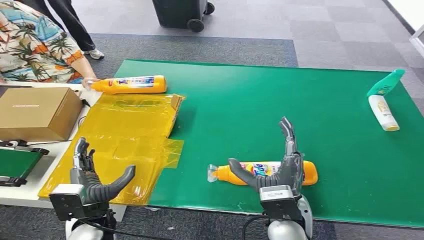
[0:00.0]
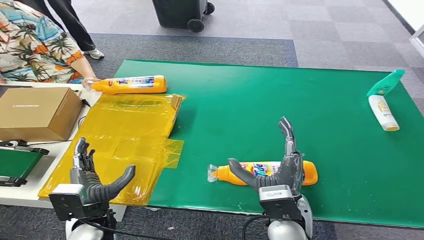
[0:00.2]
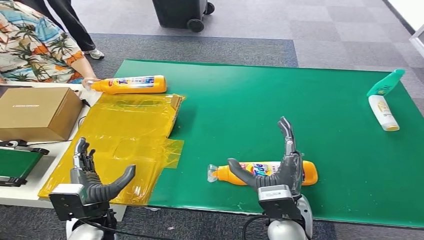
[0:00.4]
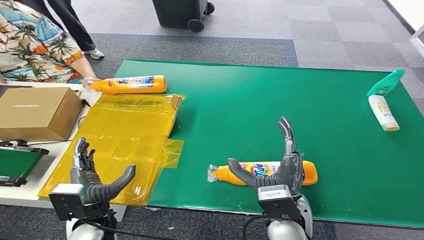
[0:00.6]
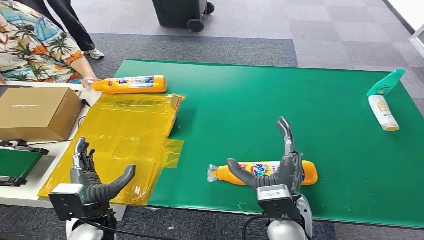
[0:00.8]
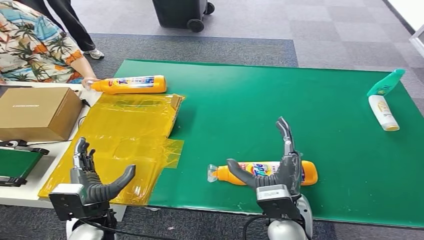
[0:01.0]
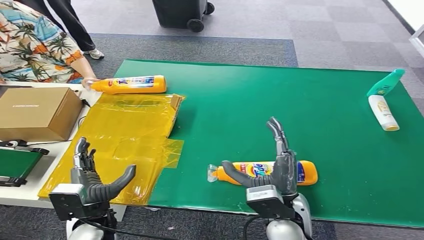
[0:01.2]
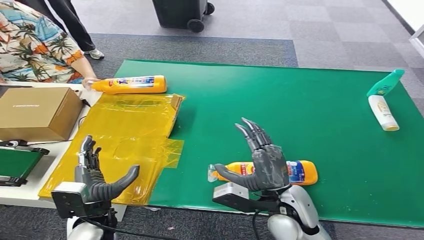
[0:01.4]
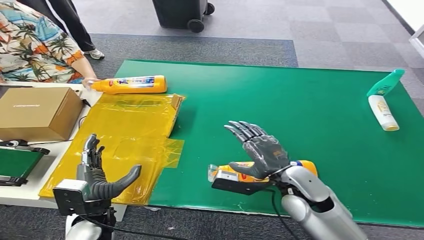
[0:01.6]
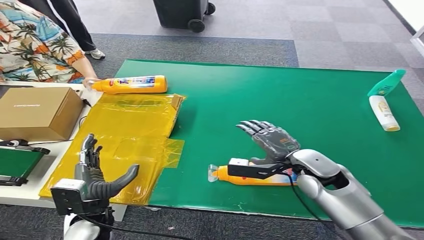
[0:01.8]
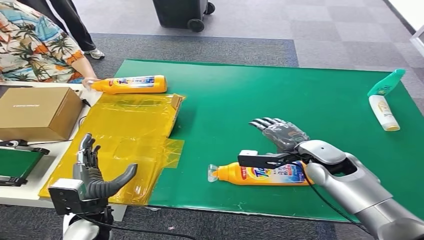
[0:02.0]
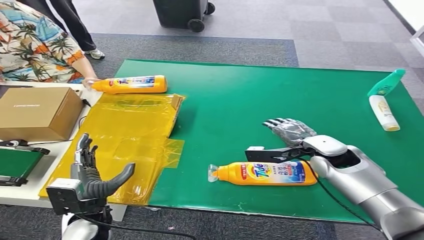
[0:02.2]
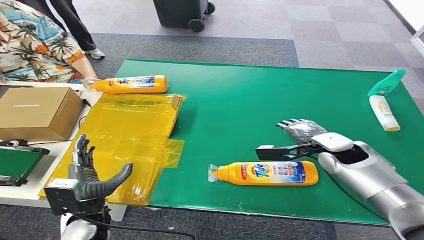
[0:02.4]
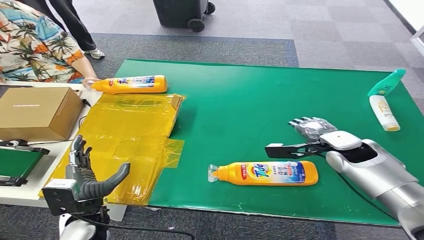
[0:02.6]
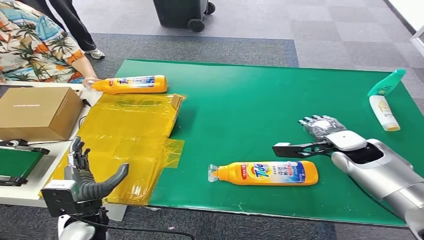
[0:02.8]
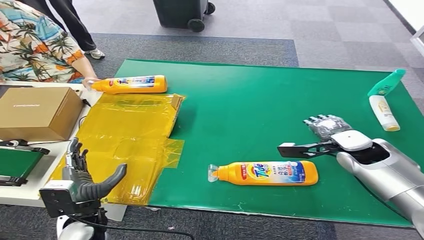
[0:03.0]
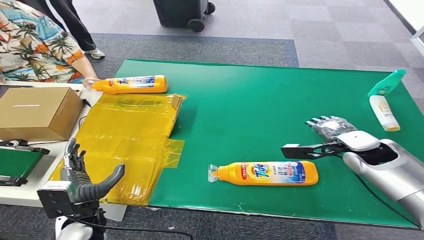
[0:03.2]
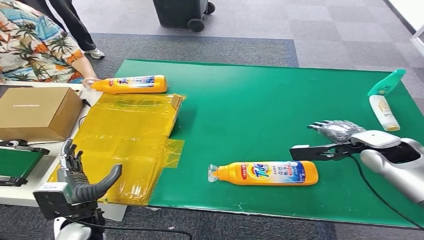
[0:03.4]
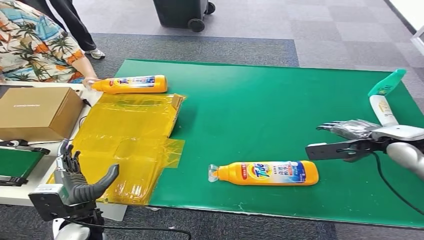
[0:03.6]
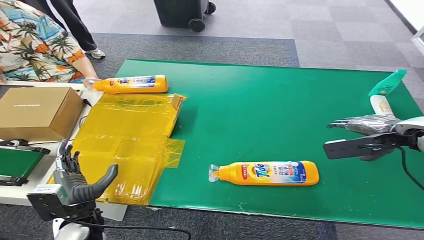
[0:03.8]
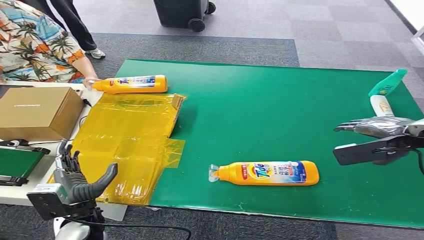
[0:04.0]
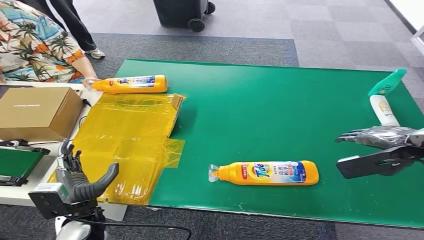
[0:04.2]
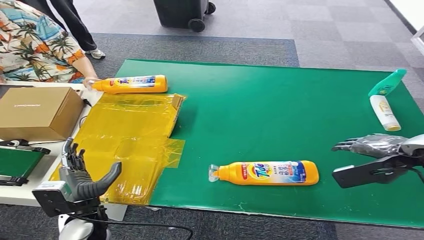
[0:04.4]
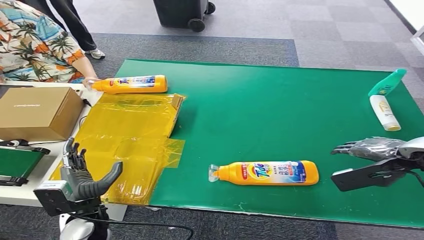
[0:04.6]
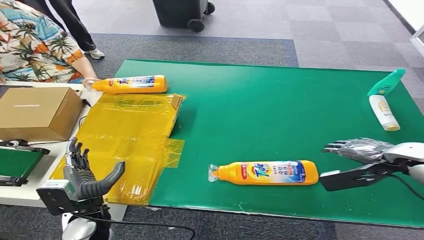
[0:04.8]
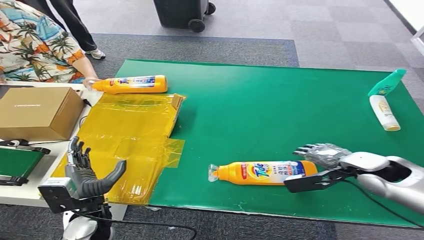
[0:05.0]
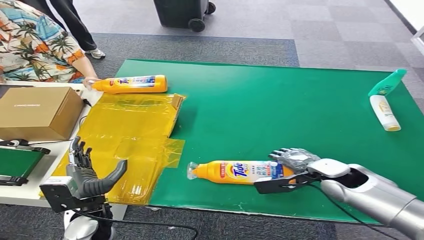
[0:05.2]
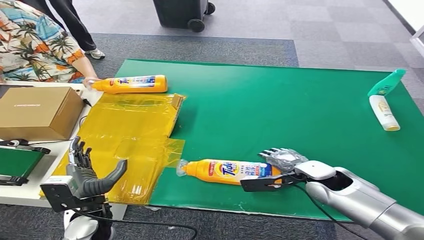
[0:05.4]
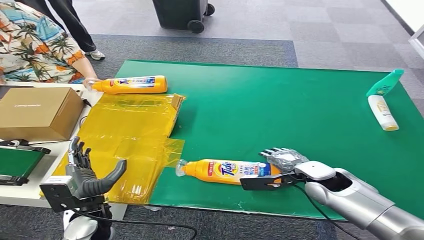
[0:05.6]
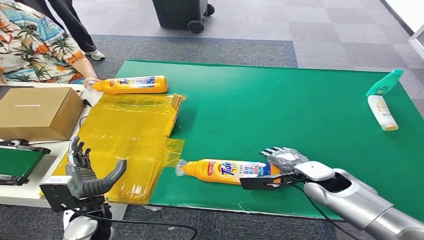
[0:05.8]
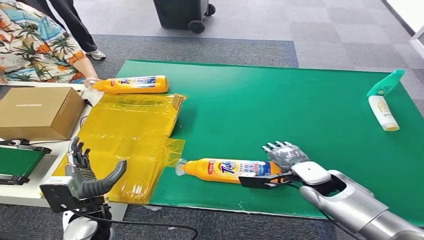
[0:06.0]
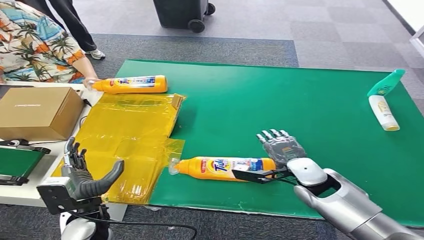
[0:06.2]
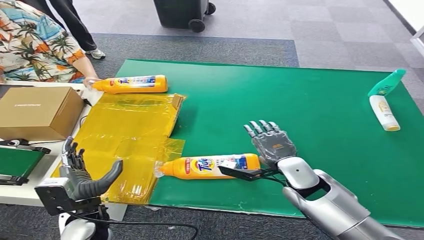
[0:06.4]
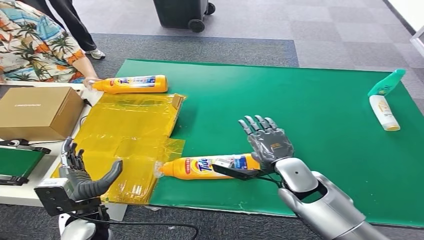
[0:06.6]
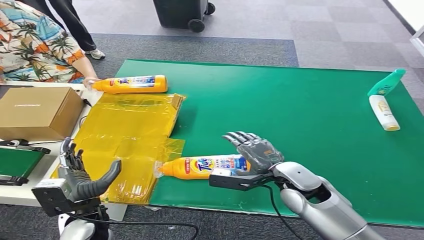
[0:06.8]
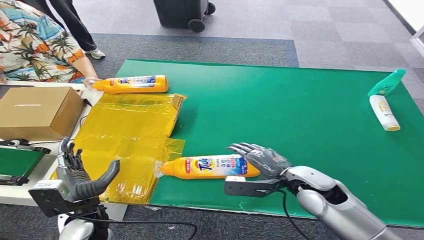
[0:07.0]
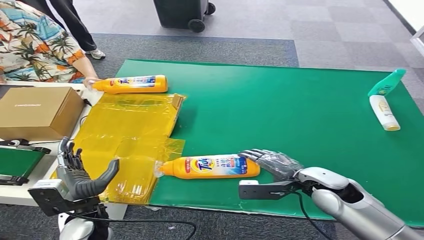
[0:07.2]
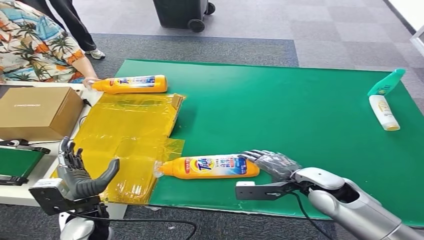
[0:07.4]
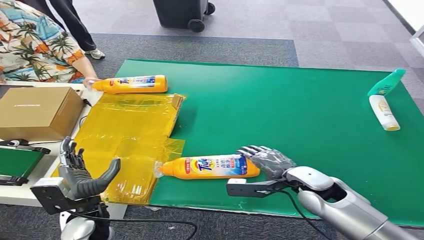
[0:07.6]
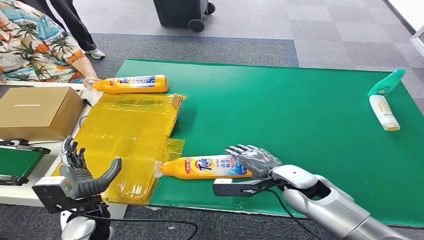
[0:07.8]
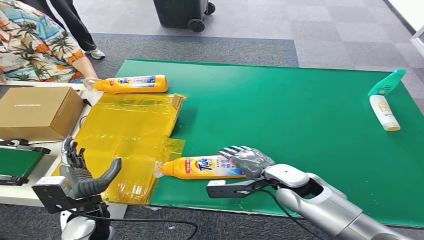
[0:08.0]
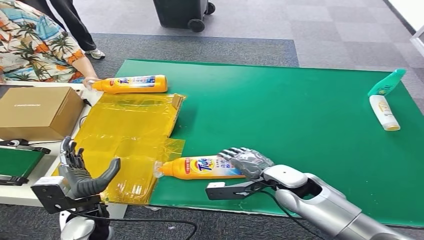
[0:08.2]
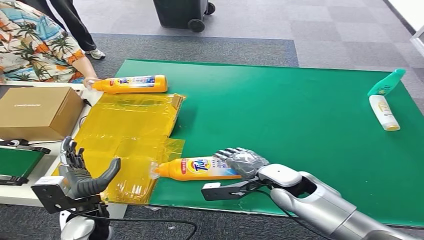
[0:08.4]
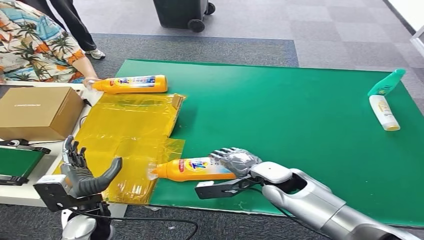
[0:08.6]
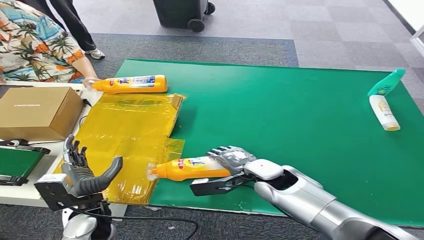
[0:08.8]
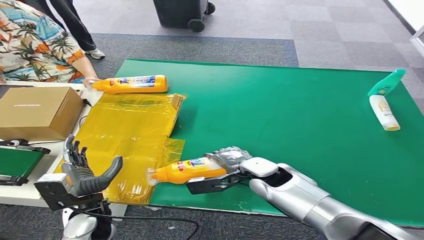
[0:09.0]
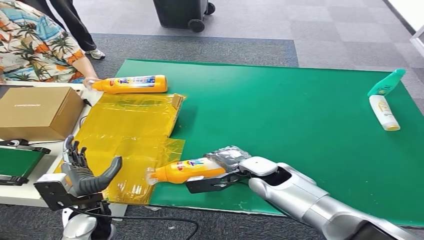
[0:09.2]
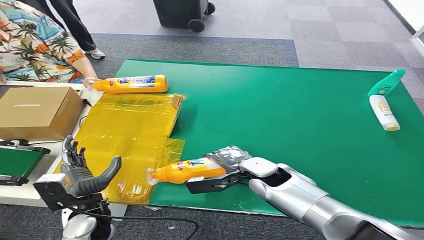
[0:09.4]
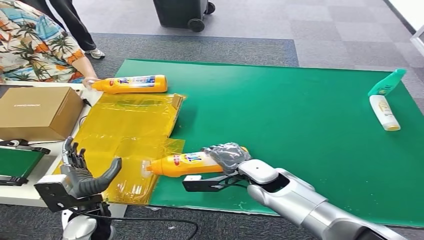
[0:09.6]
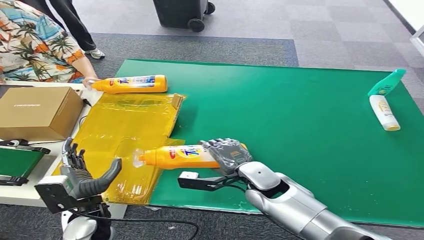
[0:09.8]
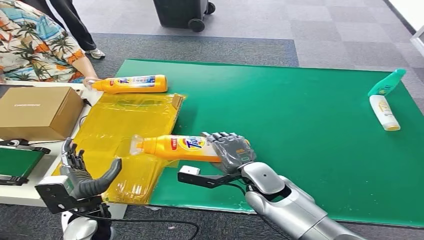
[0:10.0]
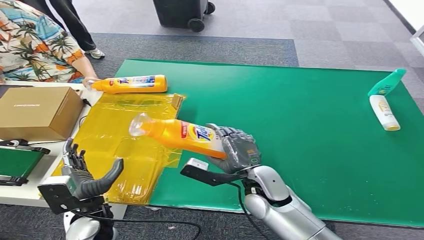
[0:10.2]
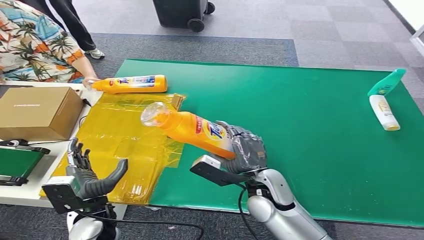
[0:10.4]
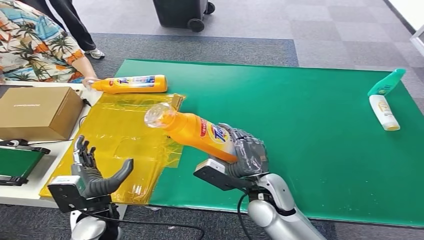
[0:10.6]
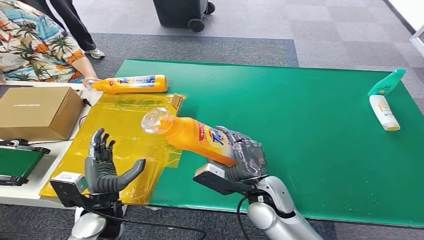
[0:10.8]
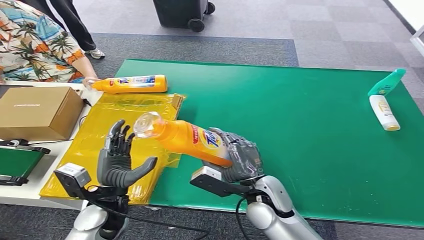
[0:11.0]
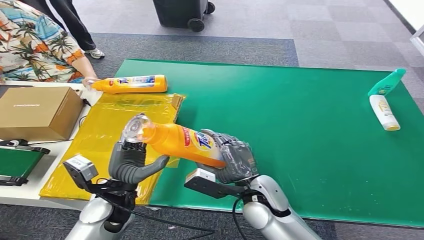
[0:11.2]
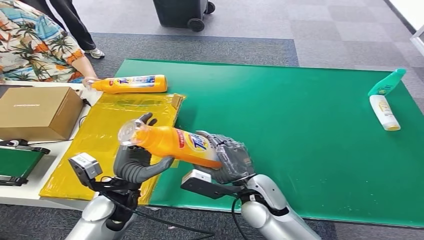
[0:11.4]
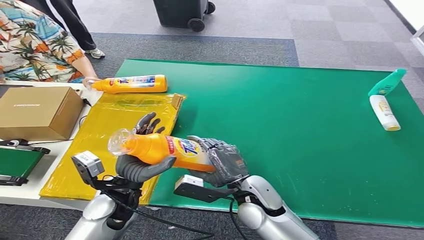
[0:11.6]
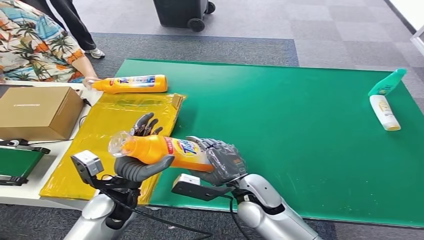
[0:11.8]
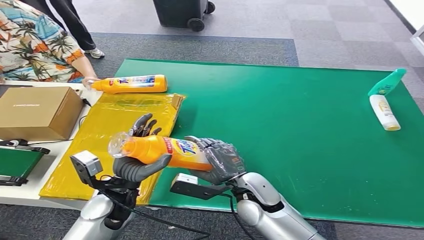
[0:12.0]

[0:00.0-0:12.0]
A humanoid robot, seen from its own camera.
Step, 0:00.0 to 0:10.0: Pick up the bottle from the table.
0:01.6 to 0:03.0: The right hand shifts about 20 cm to the right and forward.
0:03.0 to 0:04.4: The right hand moves upward, to the right and backward, approximately 15 cm.
0:04.4 to 0:06.0: The right hand is displaced downward and to the left by about 25 cm.
0:07.6 to 0:09.0: The right hand is displaced to the left by some 10 cm.
0:09.0 to 0:10.4: The right hand shifts some 5 cm backward.
0:10.4 to 0:12.0: The left hand ends up about 5 cm from where it was.

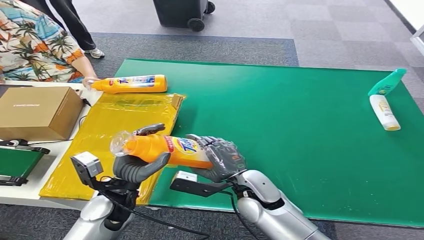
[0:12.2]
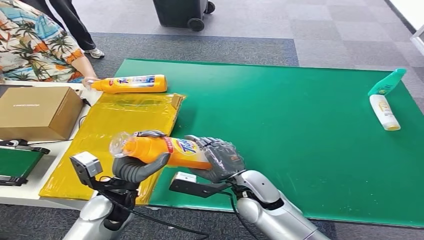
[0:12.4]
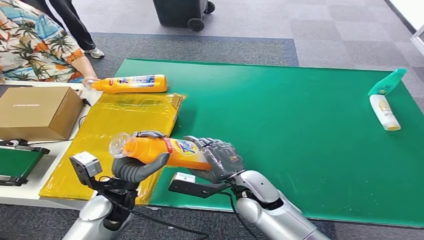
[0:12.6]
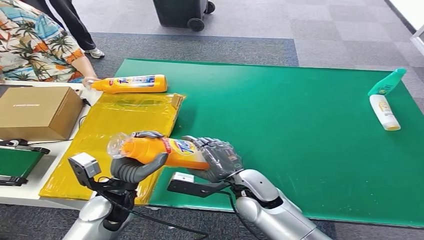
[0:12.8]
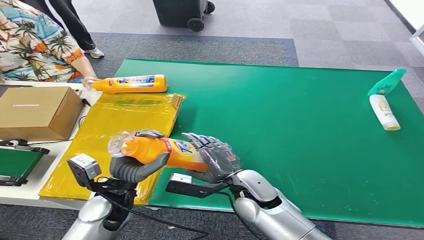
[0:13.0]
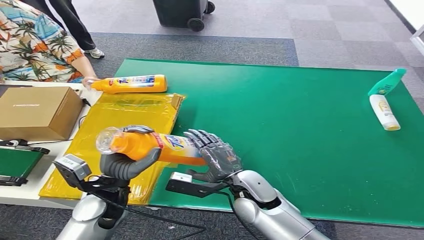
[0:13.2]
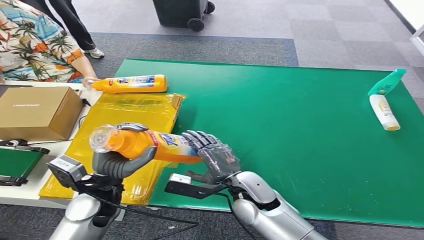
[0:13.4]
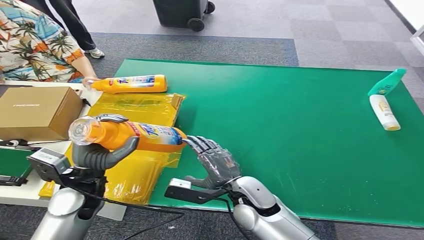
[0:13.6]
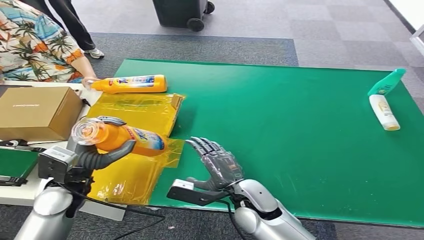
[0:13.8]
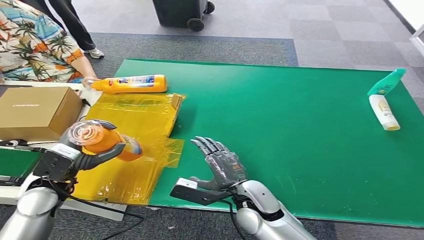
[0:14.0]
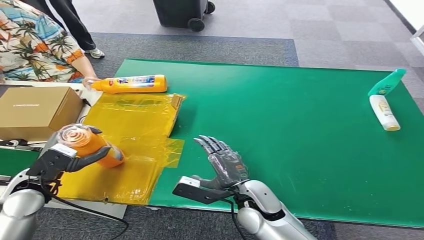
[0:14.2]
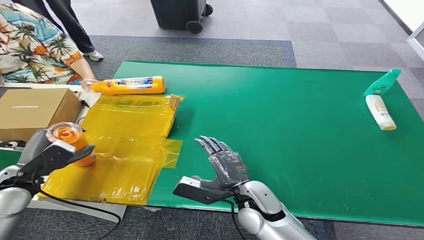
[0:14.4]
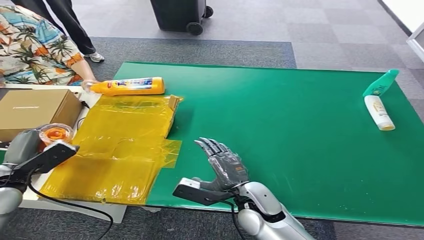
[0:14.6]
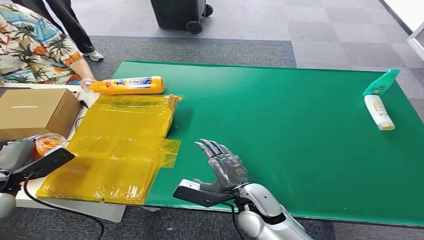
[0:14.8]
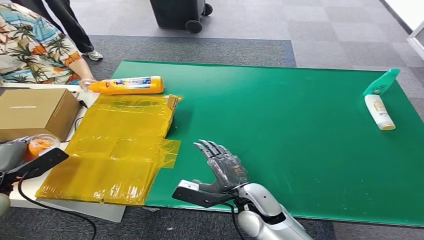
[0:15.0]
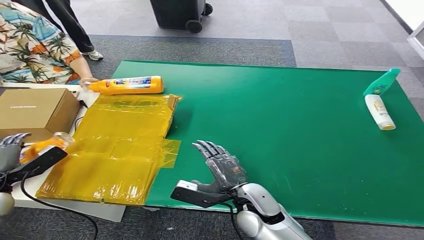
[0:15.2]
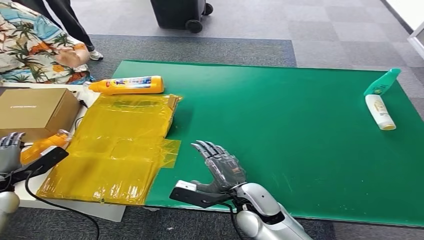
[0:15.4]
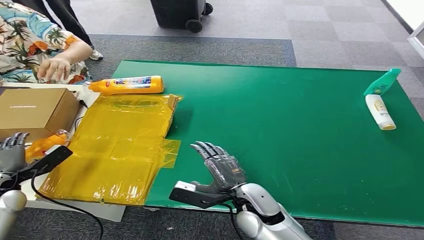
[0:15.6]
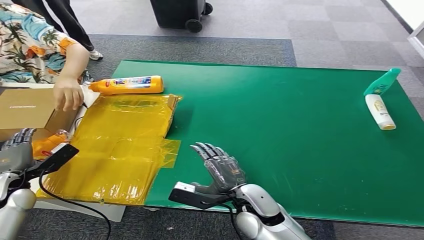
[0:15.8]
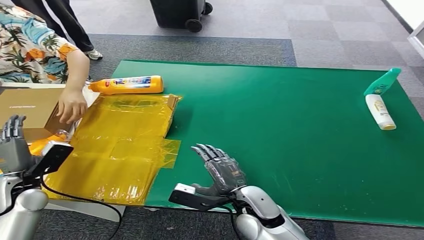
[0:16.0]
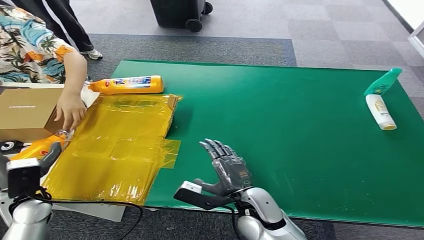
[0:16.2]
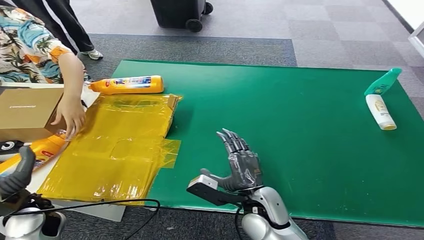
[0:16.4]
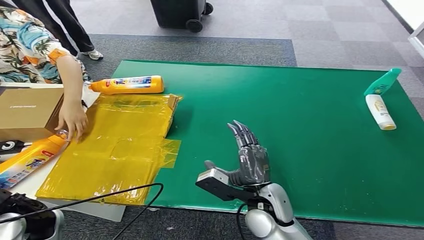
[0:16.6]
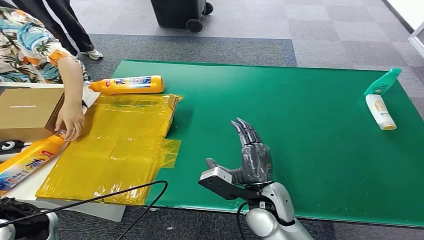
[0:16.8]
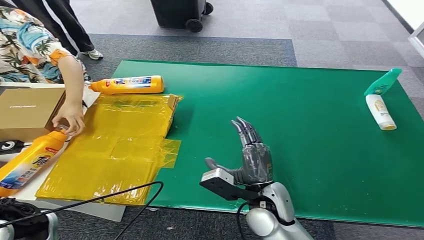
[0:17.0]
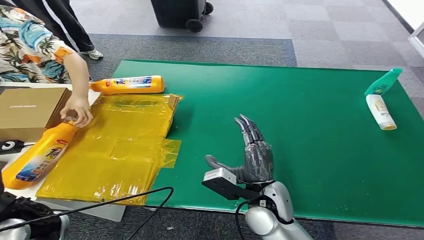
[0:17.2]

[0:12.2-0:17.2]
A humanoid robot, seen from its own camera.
Step, 0:12.2 to 0:17.2: Turn the bottle to the front side.
0:12.2 to 0:13.8: The left hand shifts about 10 cm to the left.
0:15.6 to 0:17.2: The left hand goes approximately 20 cm to the right, upward and backward.
